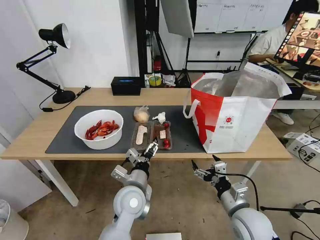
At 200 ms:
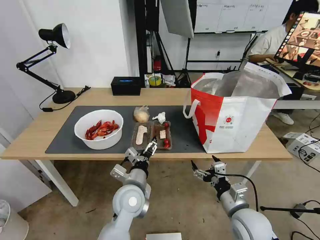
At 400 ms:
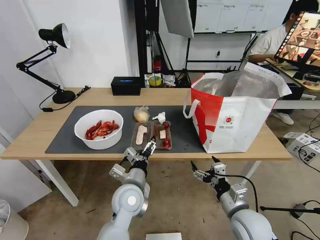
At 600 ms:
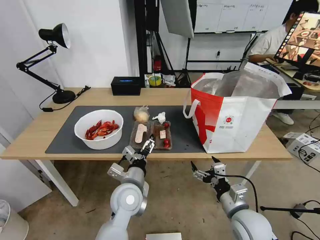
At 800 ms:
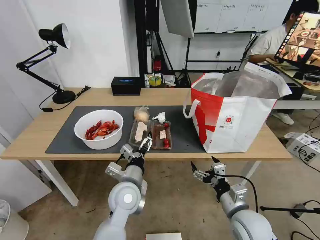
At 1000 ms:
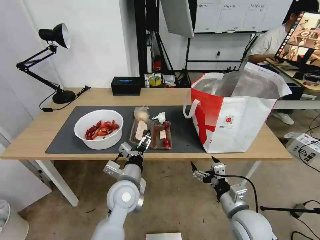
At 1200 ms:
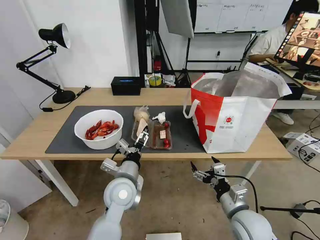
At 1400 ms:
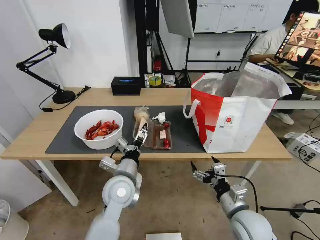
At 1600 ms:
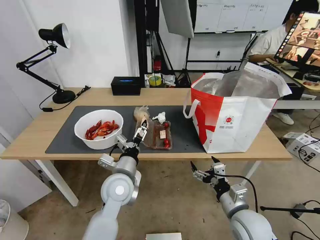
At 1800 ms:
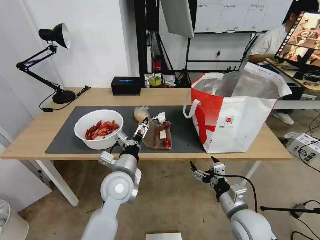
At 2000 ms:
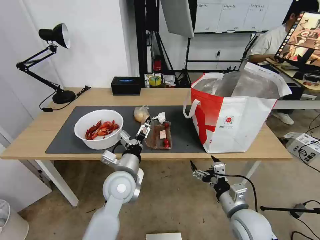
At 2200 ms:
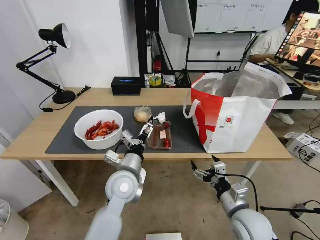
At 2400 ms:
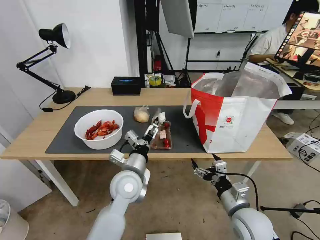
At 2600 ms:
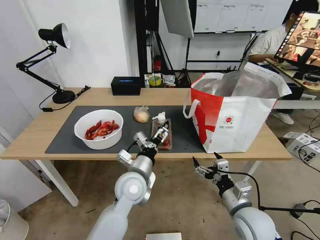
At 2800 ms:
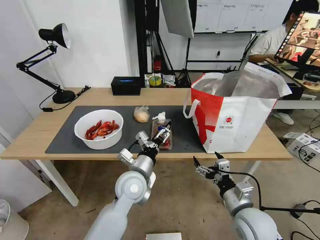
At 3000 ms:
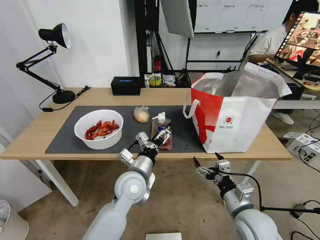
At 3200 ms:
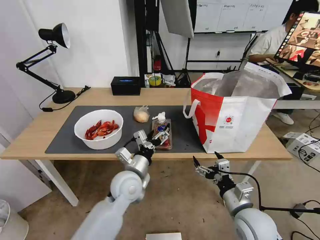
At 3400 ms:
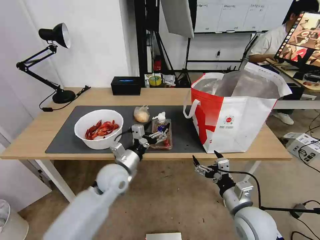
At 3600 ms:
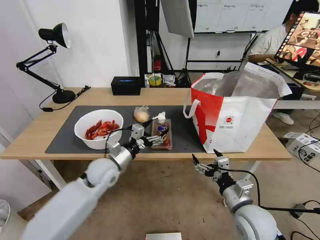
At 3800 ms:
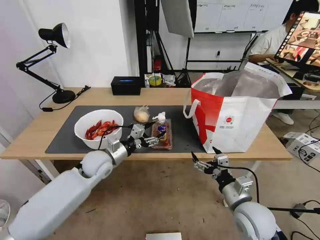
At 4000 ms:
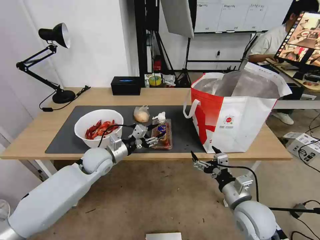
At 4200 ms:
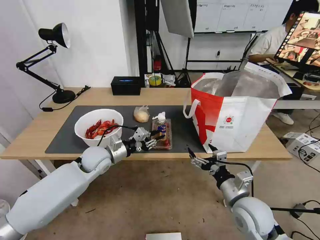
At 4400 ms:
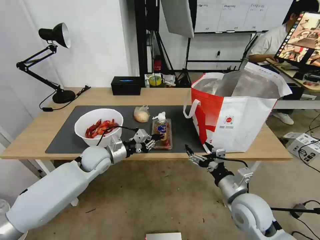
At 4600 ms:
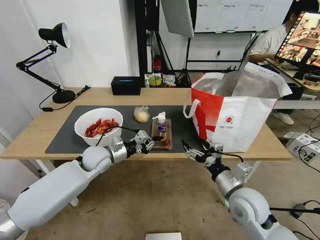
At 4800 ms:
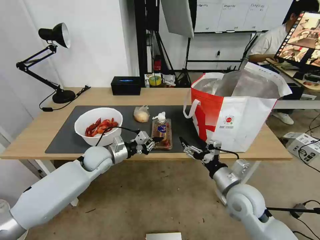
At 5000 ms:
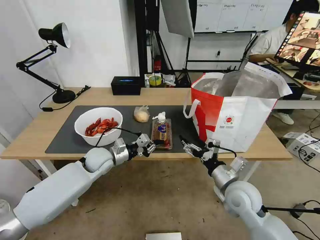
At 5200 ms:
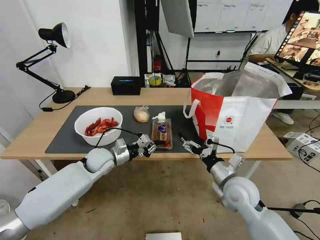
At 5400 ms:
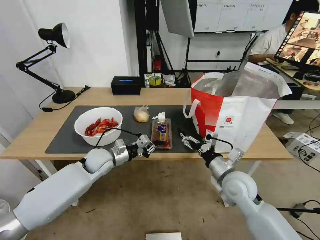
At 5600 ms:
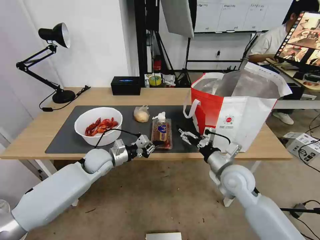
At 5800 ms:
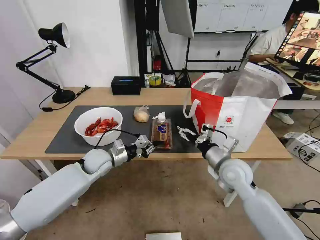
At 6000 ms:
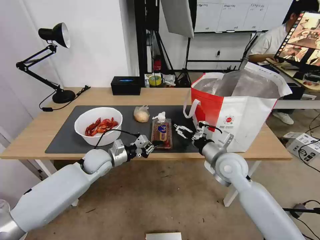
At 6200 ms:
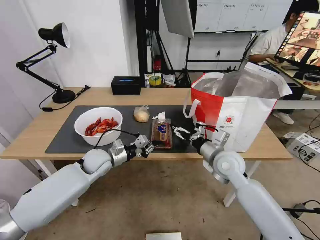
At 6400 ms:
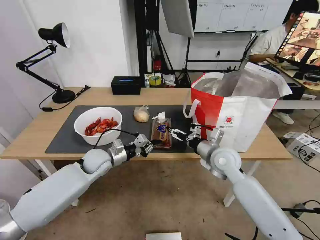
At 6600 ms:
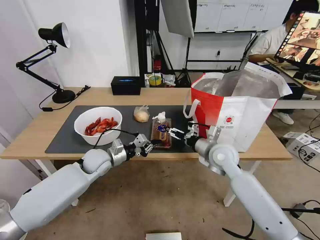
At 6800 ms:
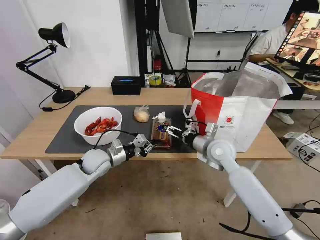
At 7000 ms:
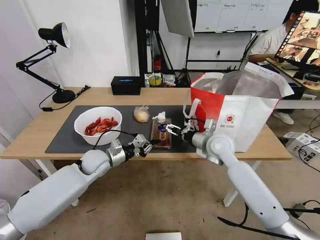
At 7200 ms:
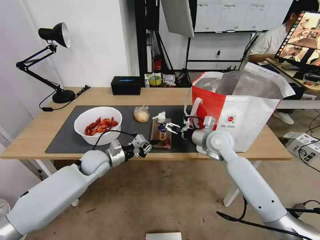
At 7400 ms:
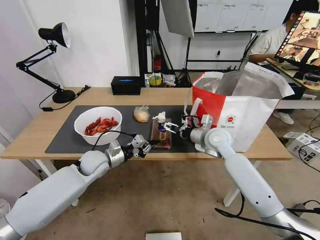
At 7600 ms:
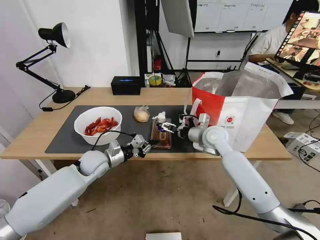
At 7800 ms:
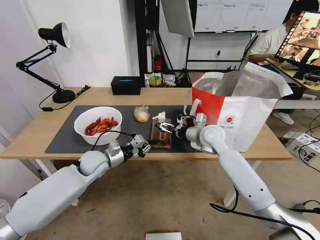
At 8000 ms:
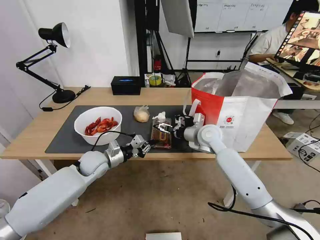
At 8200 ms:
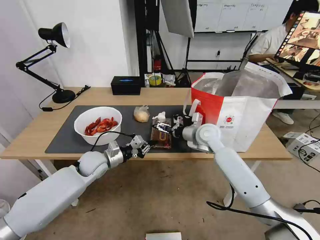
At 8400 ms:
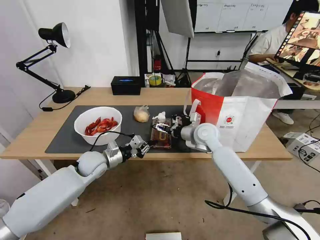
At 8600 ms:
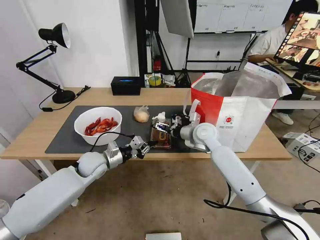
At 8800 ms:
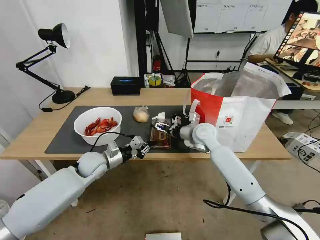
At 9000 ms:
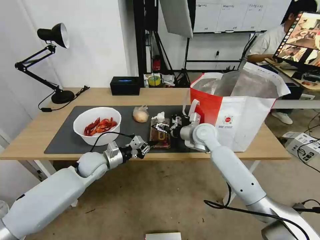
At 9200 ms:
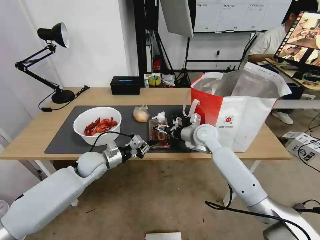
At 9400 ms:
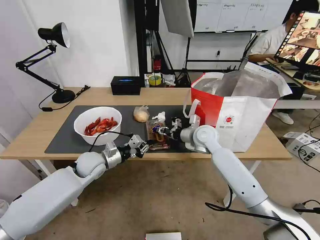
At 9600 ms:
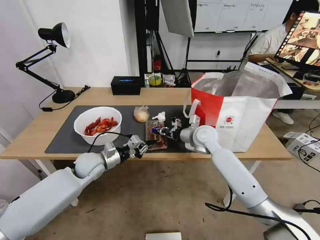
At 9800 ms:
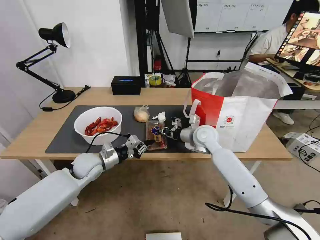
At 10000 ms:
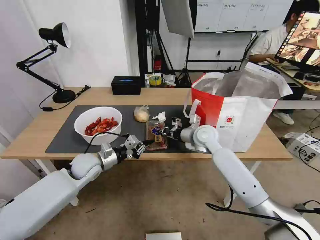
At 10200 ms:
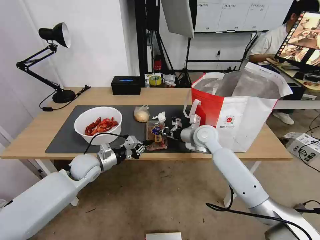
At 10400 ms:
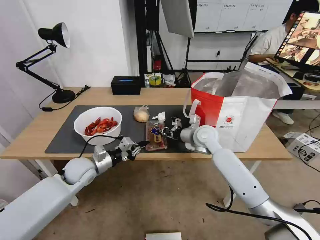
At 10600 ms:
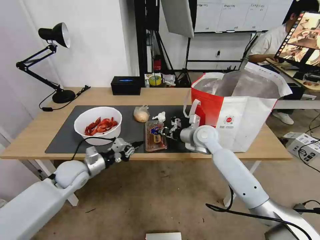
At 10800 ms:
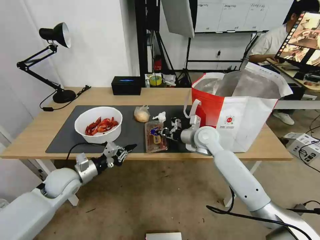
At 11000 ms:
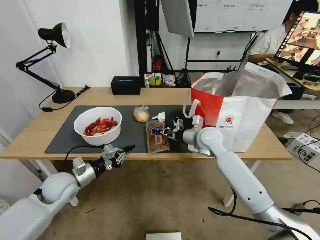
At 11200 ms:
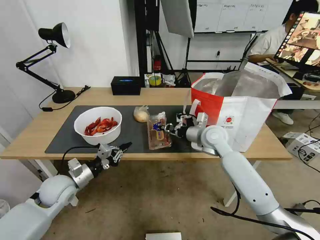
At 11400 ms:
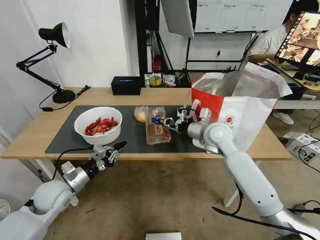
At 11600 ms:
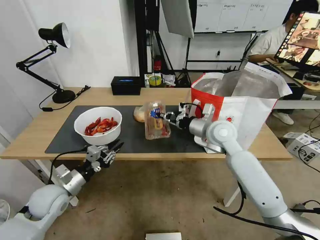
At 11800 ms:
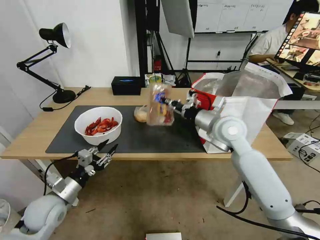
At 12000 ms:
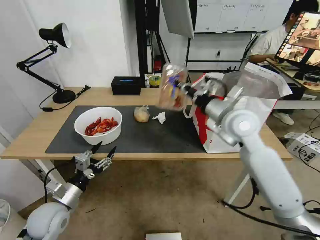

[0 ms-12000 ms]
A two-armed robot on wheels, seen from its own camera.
Task of the whole recording: Pick up the trash from the table and place it into the takeout bag.
0 ms to 1600 ms: The left gripper changes place by about 5 cm.
1600 ms to 3000 ms: The grippers stay close to where they were, moving slightly.
3000 ms to 4400 ms: The left gripper heads to the left and forward, covering approximately 15 cm, and closes.
4400 ms to 6000 ms: The right gripper moves forward, about 10 cm.
6000 ms to 7600 ms: The right gripper goes some 10 cm forward.
7600 ms to 9000 ms: The grippers move only a little.
9000 ms to 10400 ms: The right gripper closes up.
10400 ms to 12000 ms: The left gripper heads backward, covering approximately 15 cm, and opens; the right gripper moves upward and backward, roughly 15 cm.

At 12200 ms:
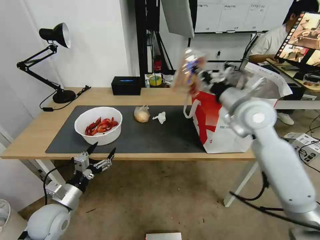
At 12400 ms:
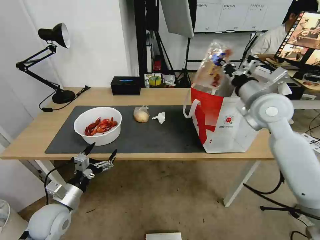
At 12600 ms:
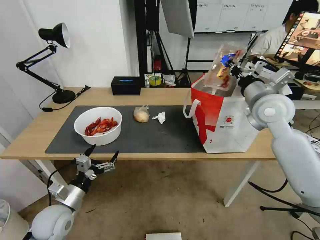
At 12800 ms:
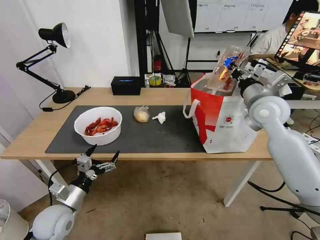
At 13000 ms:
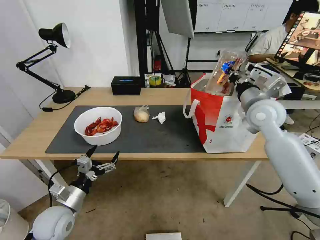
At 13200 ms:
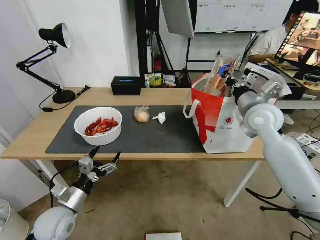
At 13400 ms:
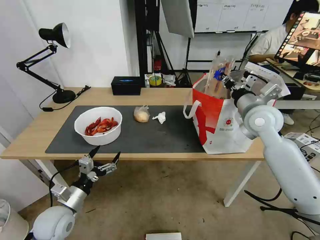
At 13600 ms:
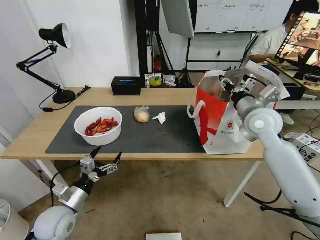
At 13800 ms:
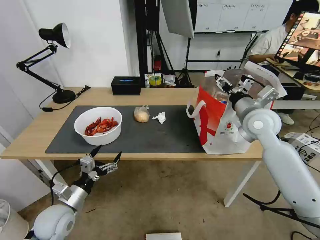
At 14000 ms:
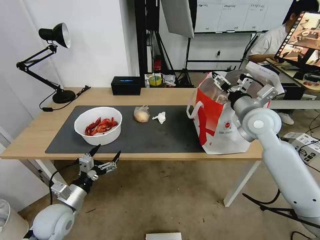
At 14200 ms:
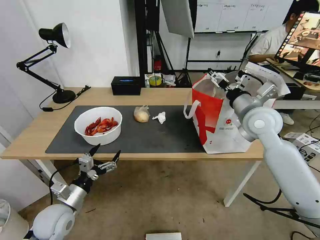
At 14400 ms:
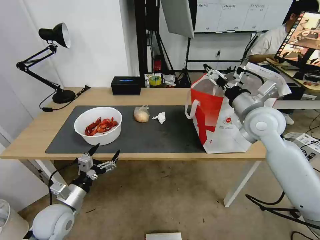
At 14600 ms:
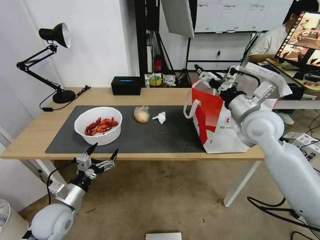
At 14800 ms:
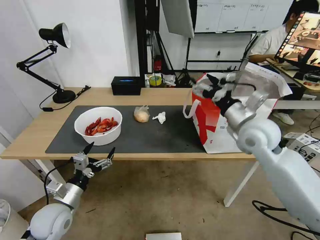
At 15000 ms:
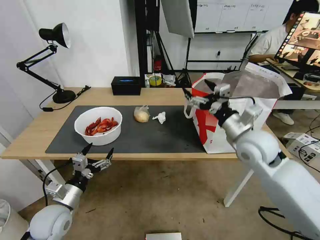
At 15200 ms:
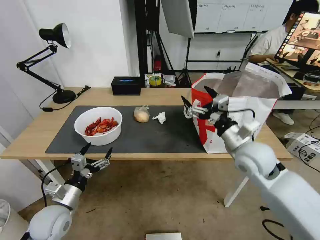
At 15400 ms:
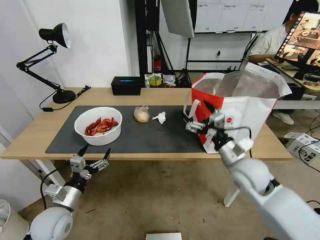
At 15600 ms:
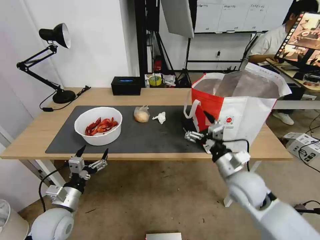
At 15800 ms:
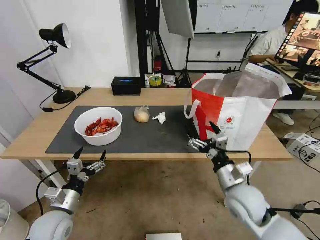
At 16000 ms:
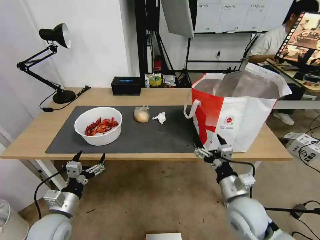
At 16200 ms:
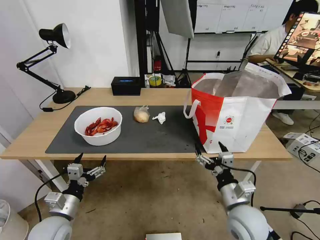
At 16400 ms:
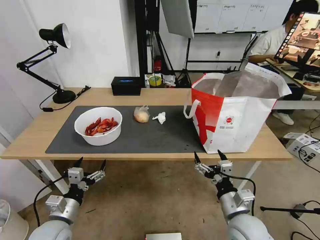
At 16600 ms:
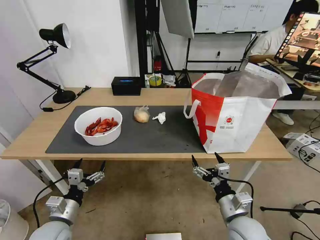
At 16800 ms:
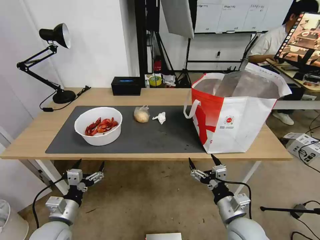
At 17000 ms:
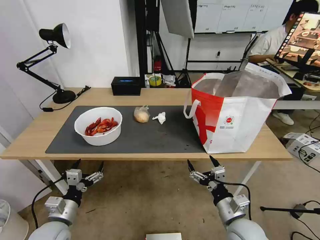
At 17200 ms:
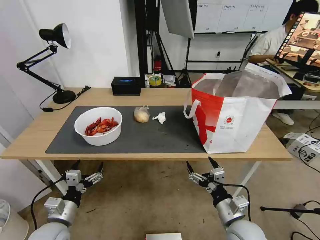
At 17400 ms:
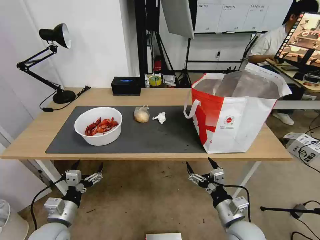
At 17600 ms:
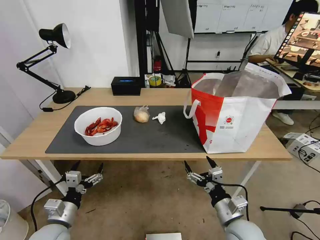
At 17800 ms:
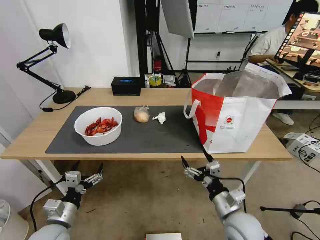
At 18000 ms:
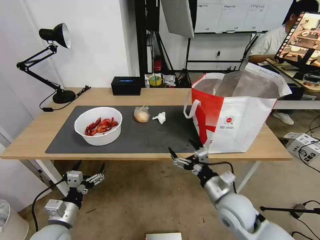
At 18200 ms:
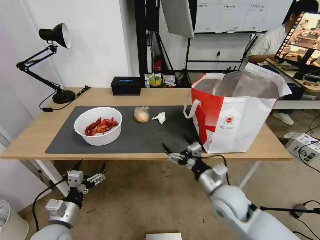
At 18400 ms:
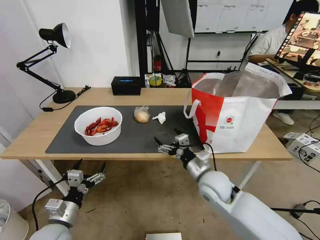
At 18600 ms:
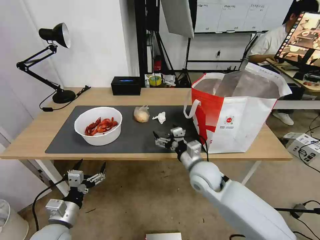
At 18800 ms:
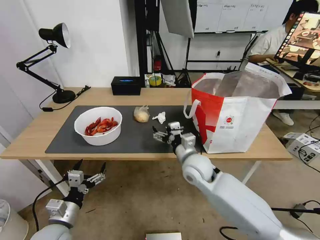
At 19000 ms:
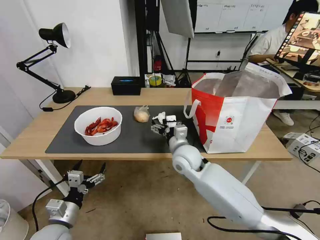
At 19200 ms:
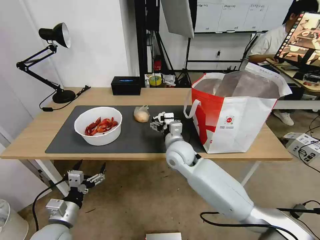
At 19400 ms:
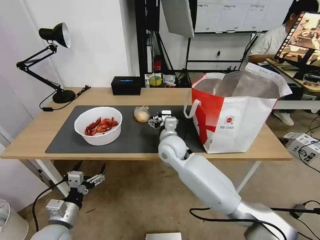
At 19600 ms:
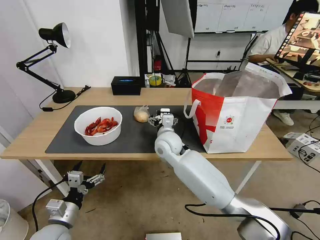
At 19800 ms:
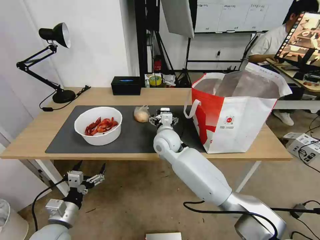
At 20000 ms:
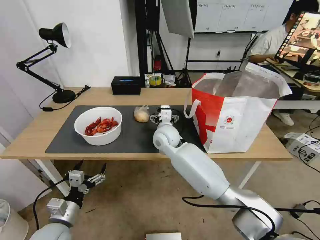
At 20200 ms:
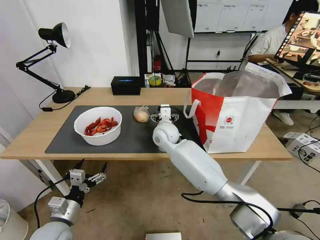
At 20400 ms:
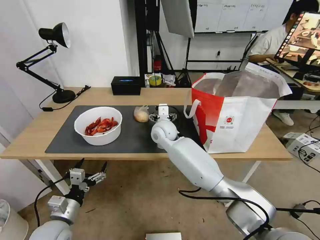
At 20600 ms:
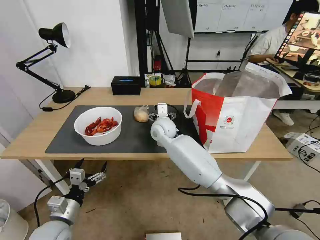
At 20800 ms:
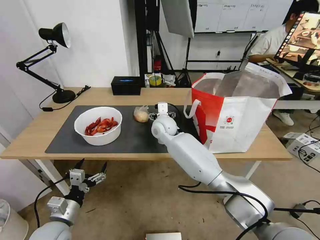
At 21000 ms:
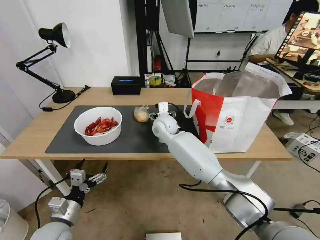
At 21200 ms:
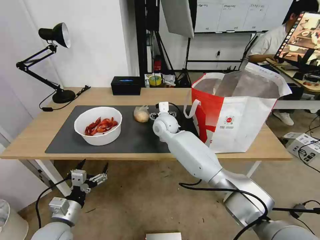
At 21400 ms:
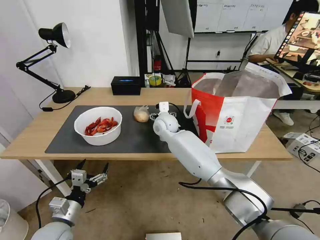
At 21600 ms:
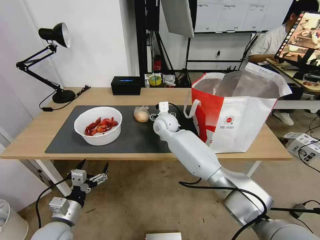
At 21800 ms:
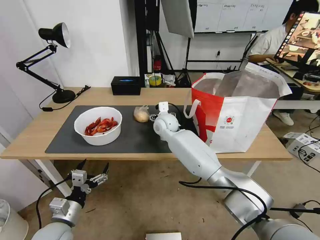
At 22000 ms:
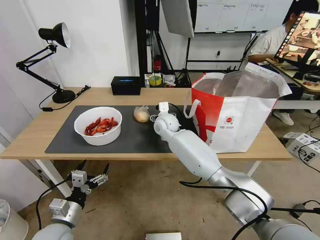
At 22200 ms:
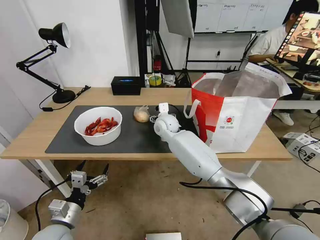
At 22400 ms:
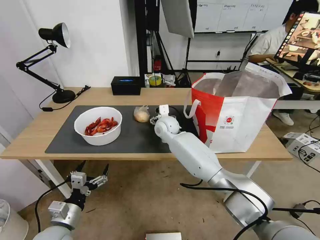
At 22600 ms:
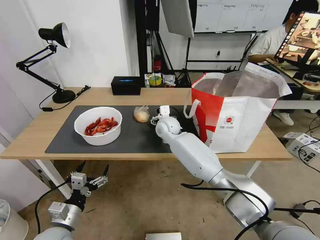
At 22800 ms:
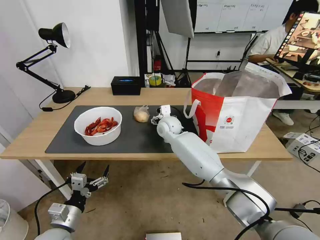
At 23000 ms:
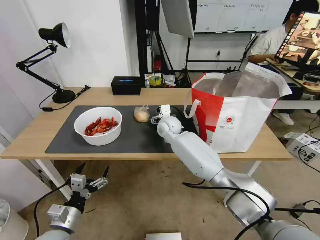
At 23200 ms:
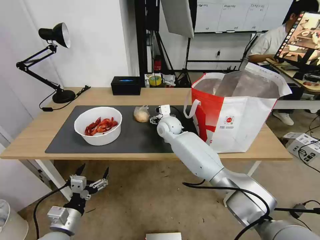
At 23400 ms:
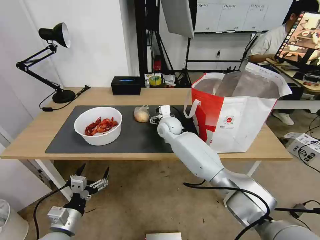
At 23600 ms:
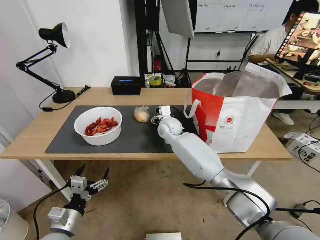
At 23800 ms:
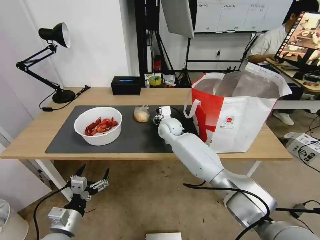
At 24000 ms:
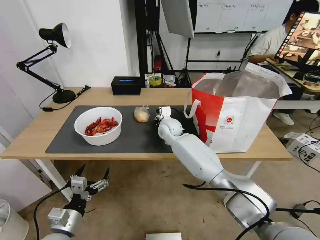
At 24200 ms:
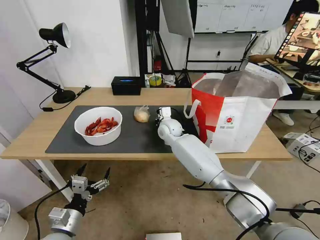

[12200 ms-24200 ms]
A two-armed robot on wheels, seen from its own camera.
Task of the whole recording: Pick up the trash from the table and place it into the takeout bag.
12200 ms to 13800 ms: The right gripper moves approximately 5 cm, and opens up.
13800 ms to 15200 ms: The right gripper heads backward and downward, covering about 10 cm.
15200 ms to 16600 ms: The right gripper goes roughly 20 cm backward and downward.
16600 ms to 18200 ms: The right gripper heads forward, covering some 10 cm.
18200 ms to 19800 ms: The right gripper travels forward and to the left by approximately 25 cm.
19800 ms to 21200 ms: The right gripper heads forward, covering roughly 10 cm.
21200 ms to 22600 ms: The grippers make only small movements.
22600 ms to 24200 ms: The right gripper closes.
